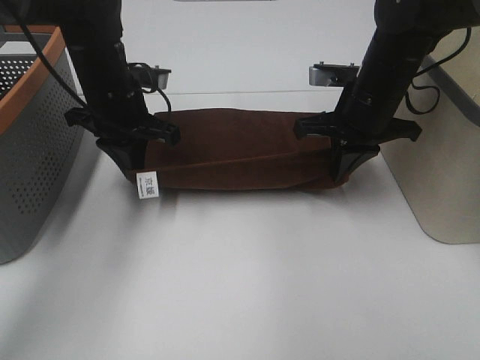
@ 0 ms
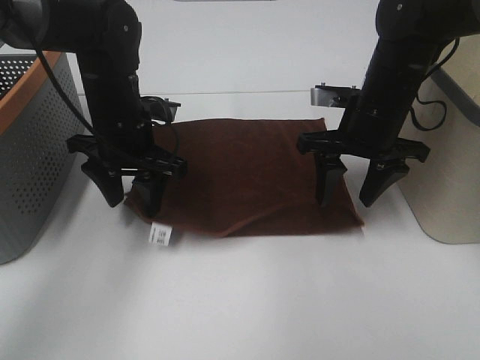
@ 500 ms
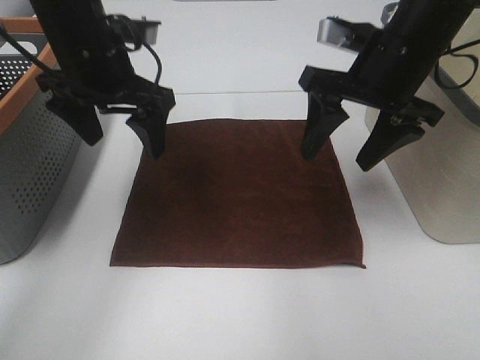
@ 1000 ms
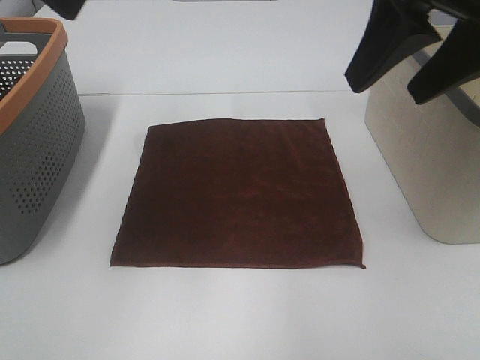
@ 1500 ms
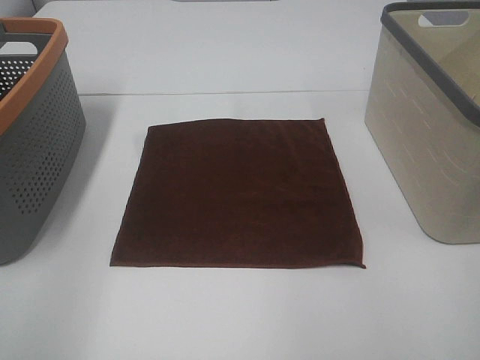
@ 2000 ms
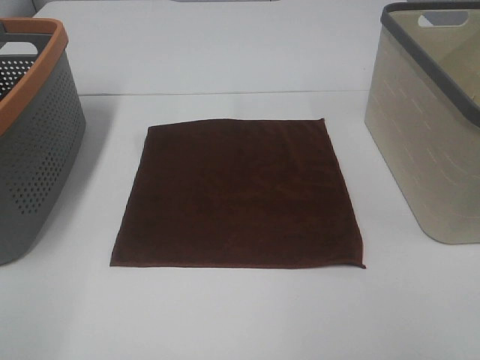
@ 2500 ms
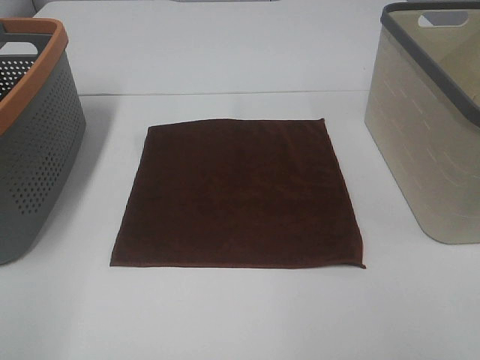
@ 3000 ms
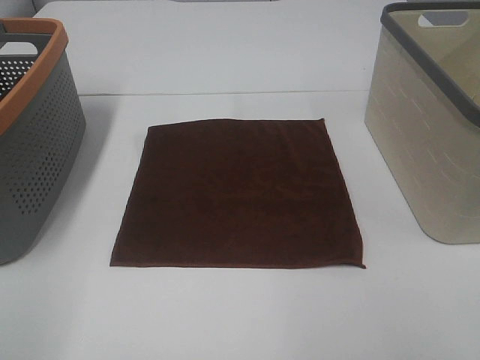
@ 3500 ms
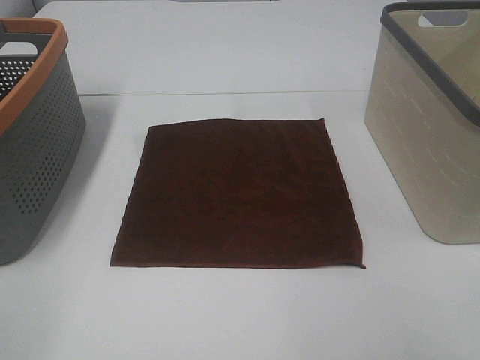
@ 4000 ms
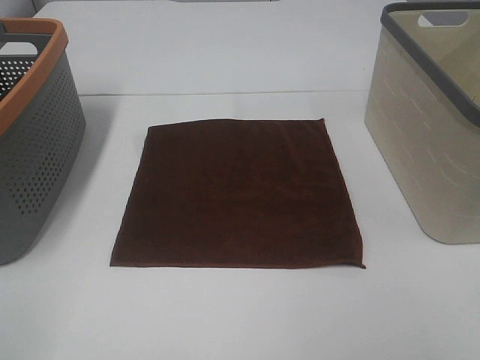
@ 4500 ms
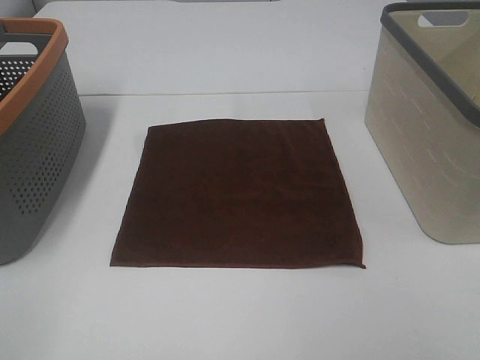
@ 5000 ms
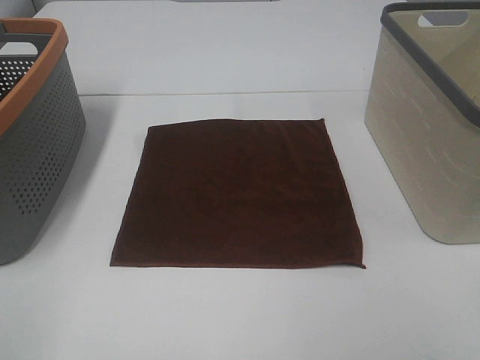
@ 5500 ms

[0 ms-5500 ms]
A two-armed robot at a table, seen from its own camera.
Task of the whole recording: Remove the towel and place it.
0 ms to 2000 ms: The right gripper shifts some 30 cm backward and upward, and opens its fingers, while the left gripper shifts about 40 cm backward, upward and to the left, and opens its fingers.
